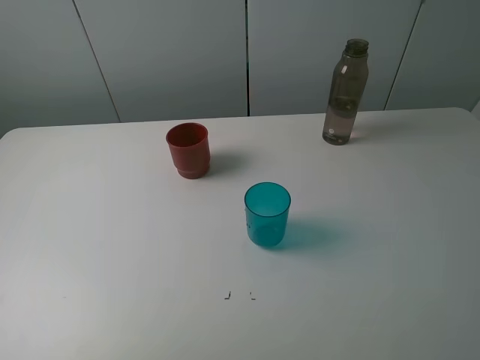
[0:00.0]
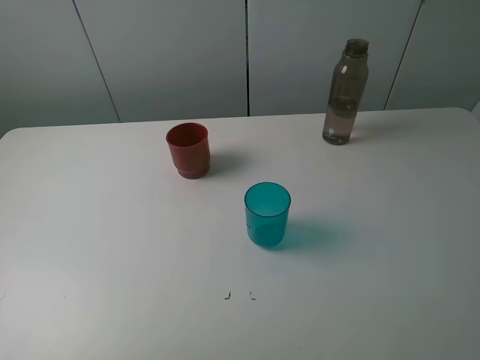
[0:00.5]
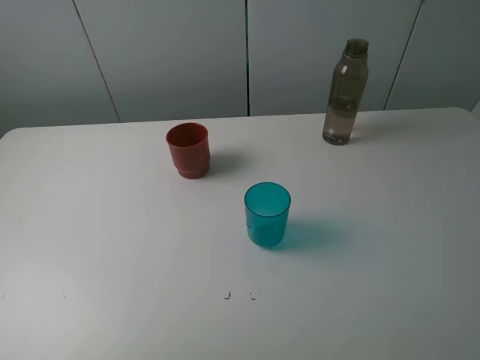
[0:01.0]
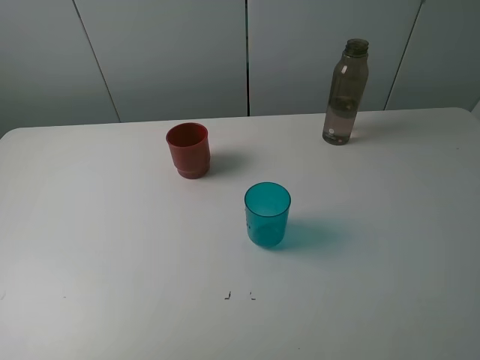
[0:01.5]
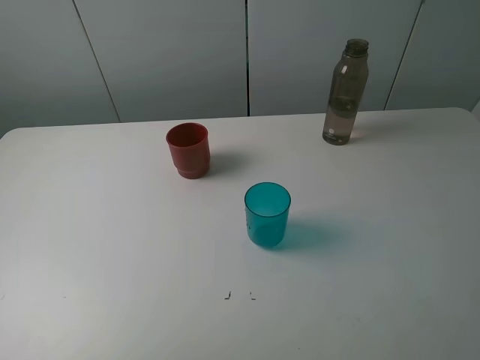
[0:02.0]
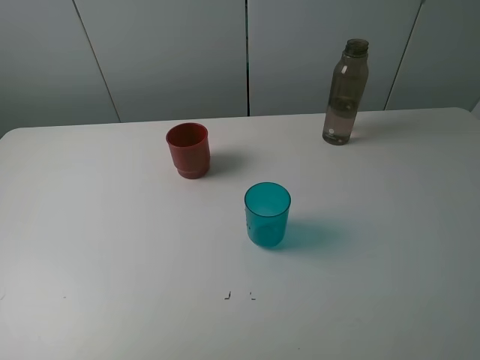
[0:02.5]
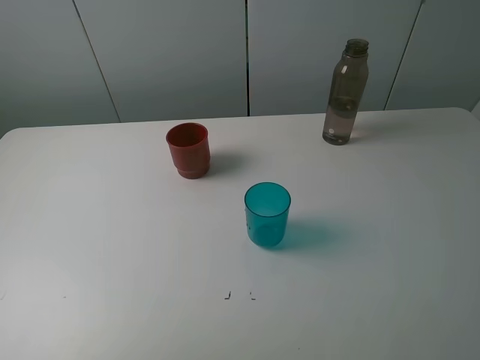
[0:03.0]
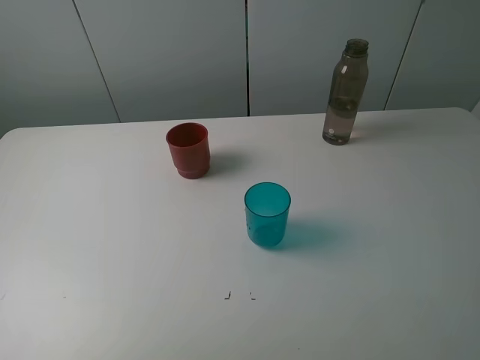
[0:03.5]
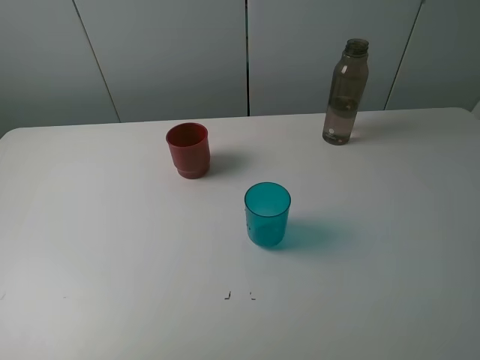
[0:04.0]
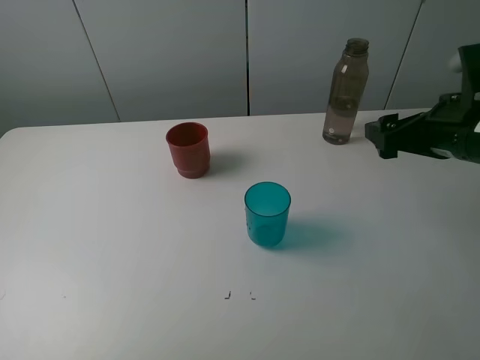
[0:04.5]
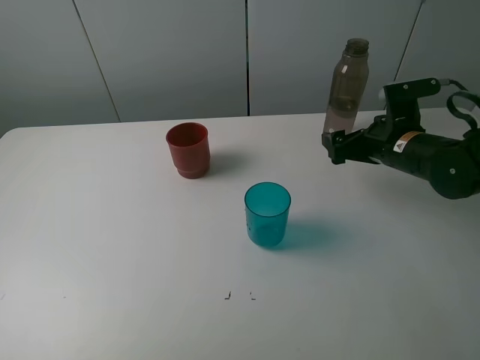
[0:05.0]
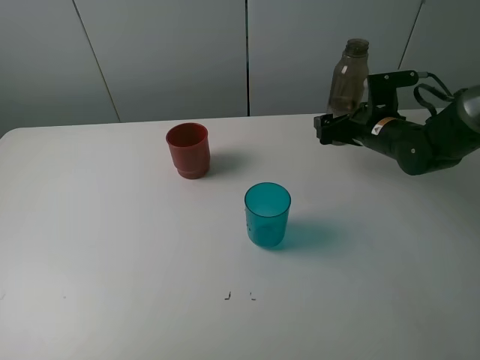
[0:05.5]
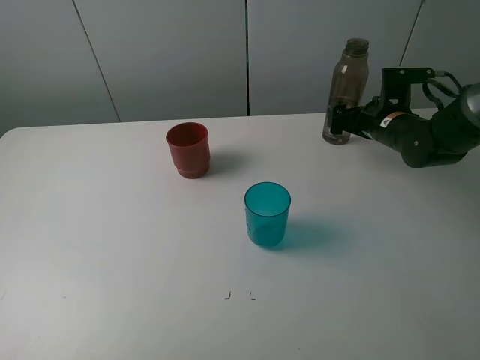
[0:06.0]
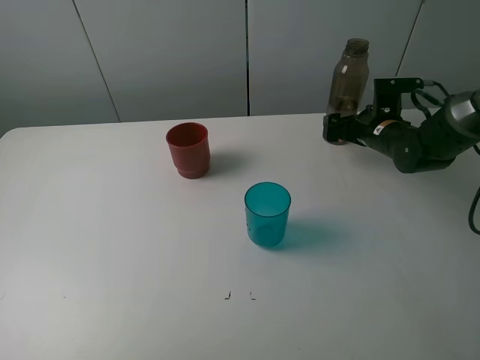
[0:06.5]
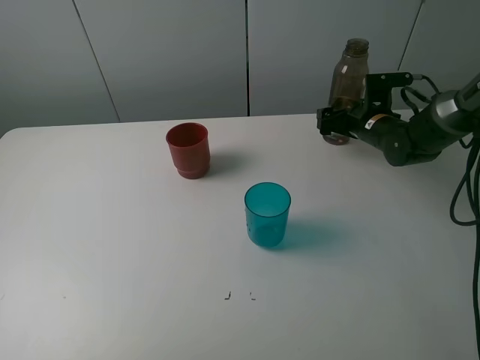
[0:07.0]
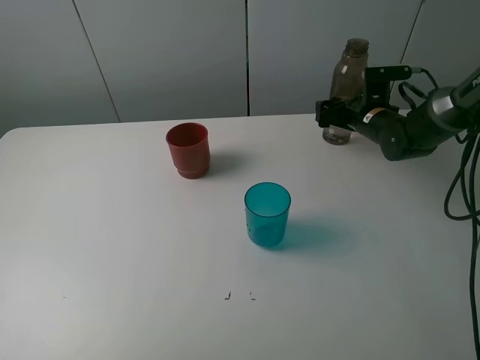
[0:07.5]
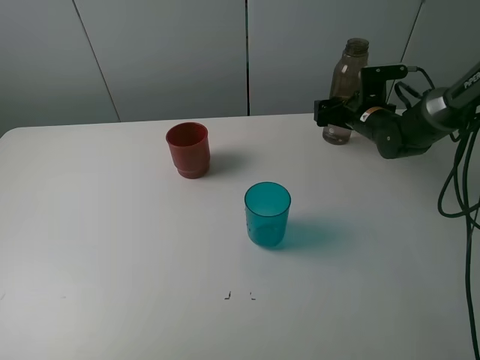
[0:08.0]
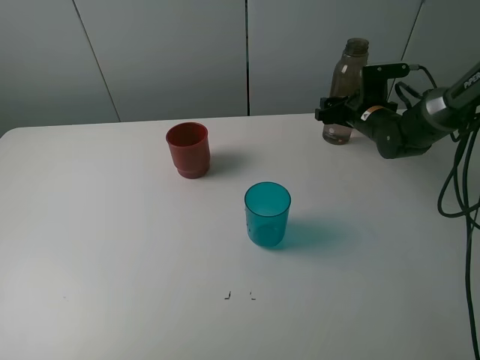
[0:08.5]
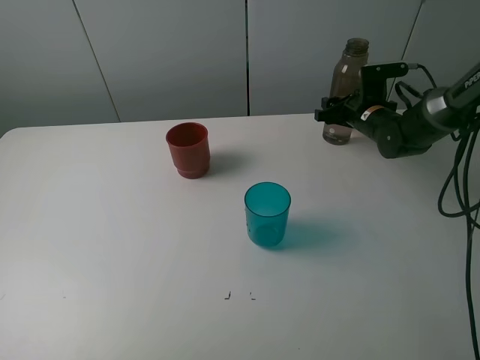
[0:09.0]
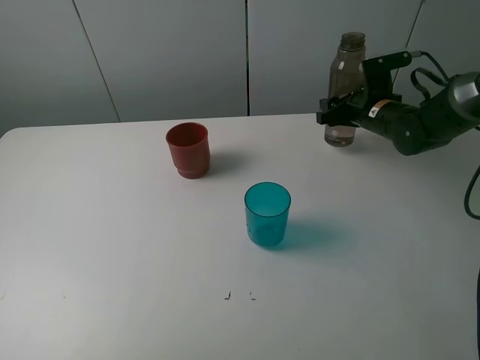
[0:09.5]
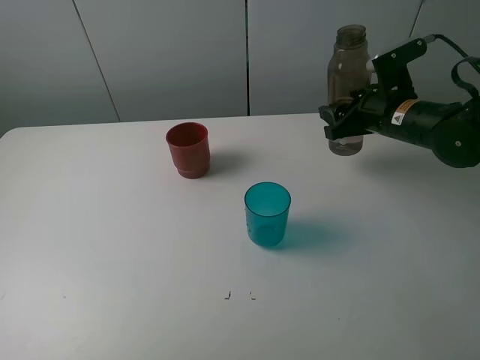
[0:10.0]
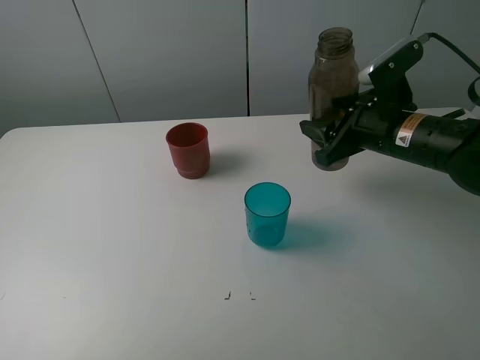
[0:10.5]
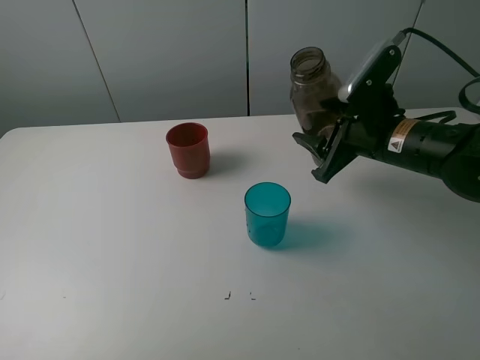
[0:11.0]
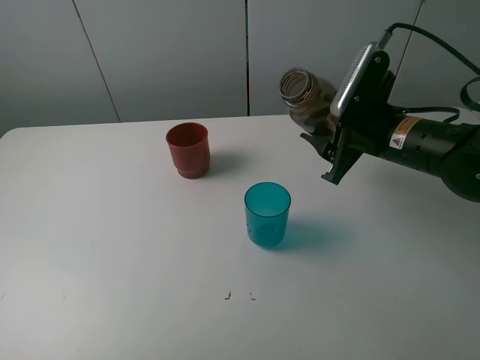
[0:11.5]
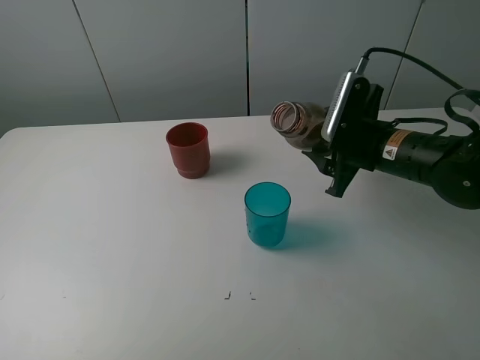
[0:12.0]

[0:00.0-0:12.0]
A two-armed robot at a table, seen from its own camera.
Task of the whole recording: pick up the bottle and pour water into the cup, then pick up the cup containing water and pour it into another cup.
Step, 0.0 to 8.5 s: Grasp the brown bottle with the right gripper.
0.0 to 2.0 s: Both grippers stay about where they are.
4.0 to 6.0 s: The right gripper travels forward and downward by some 30 cm.
6.0 to 8.0 s: The right gripper travels forward by roughly 5 cm.
8.0 to 10.0 s: The right gripper heads backward and upward, covering some 15 cm, and closes.
10.0 to 12.0 s: The right gripper travels backward by approximately 5 cm.

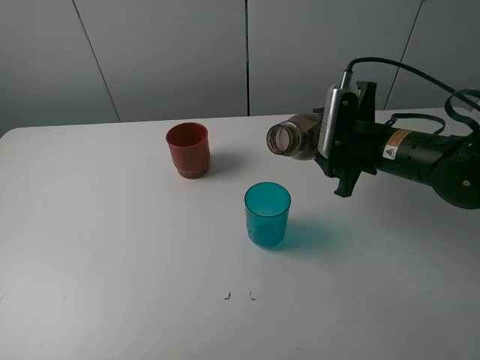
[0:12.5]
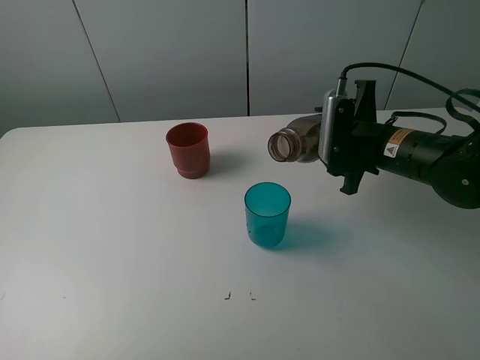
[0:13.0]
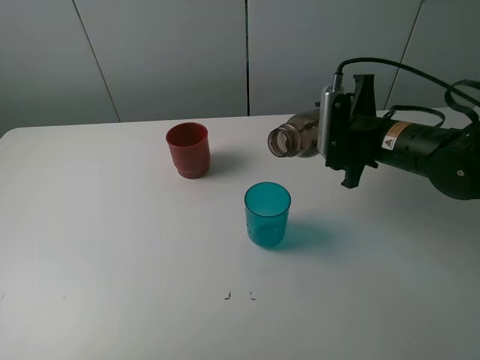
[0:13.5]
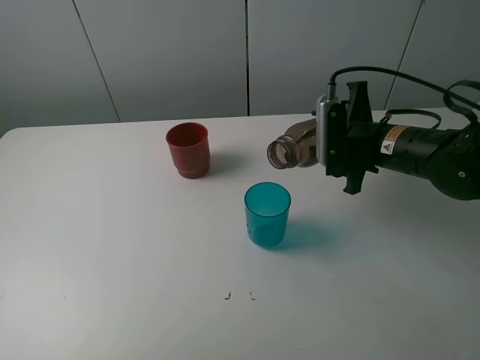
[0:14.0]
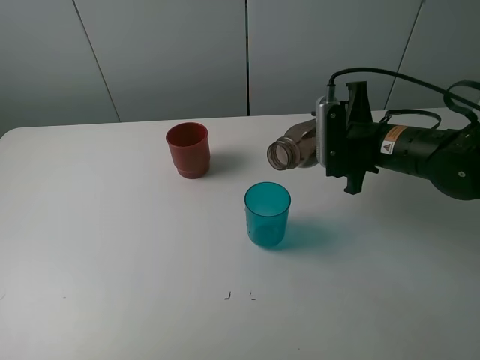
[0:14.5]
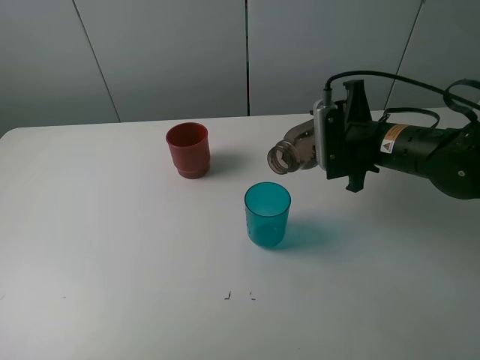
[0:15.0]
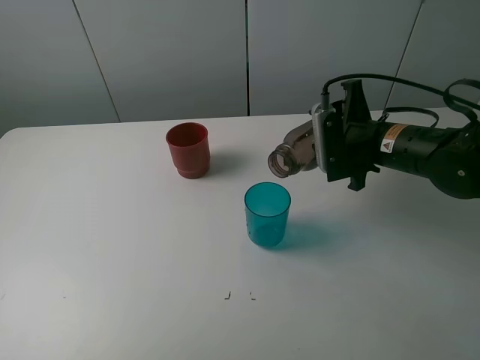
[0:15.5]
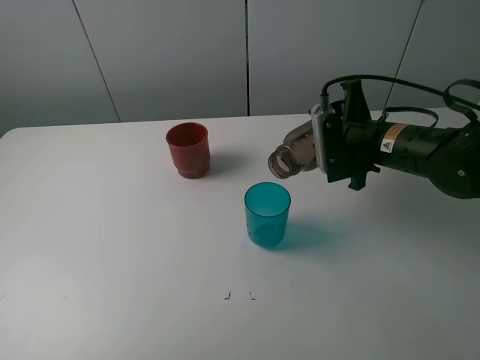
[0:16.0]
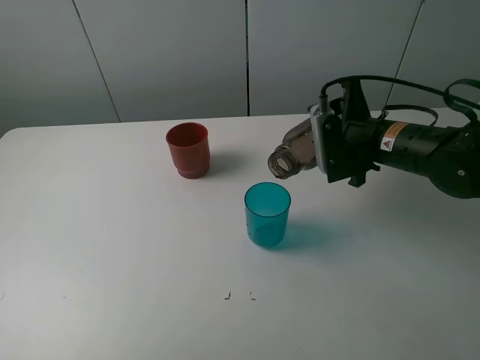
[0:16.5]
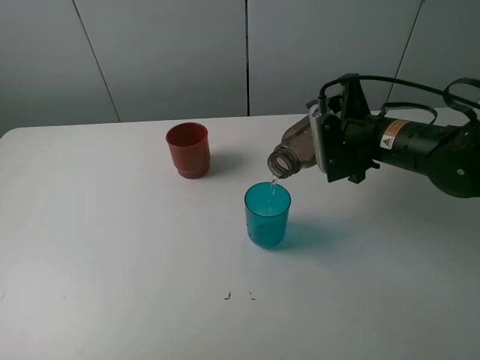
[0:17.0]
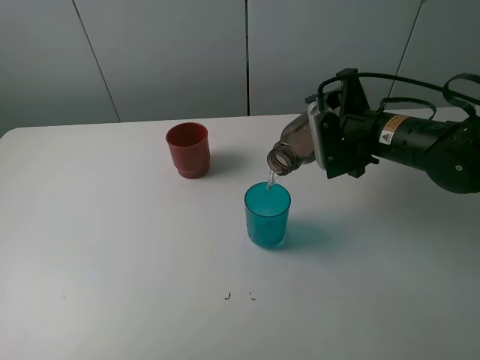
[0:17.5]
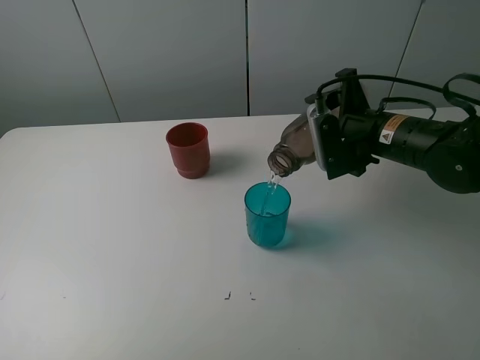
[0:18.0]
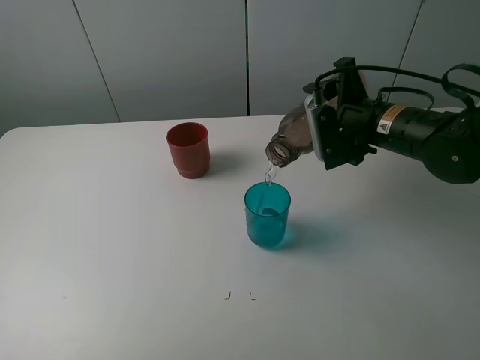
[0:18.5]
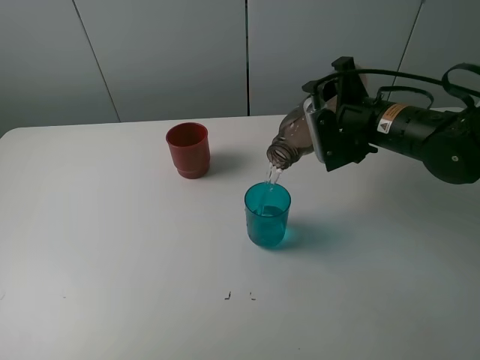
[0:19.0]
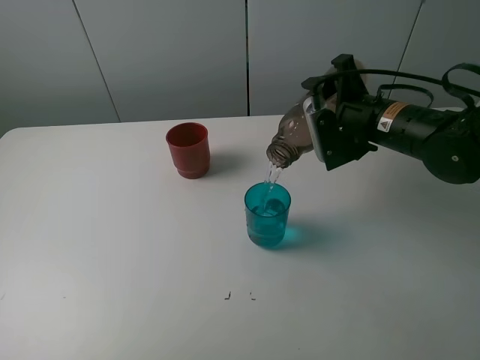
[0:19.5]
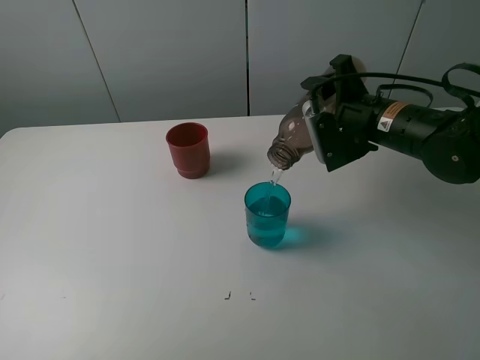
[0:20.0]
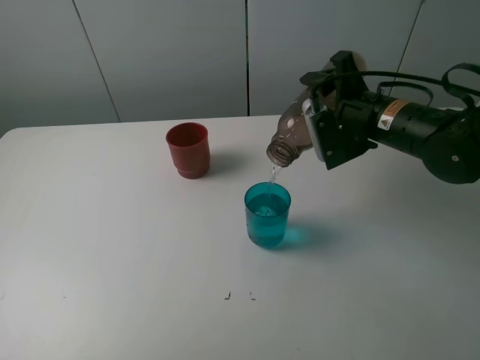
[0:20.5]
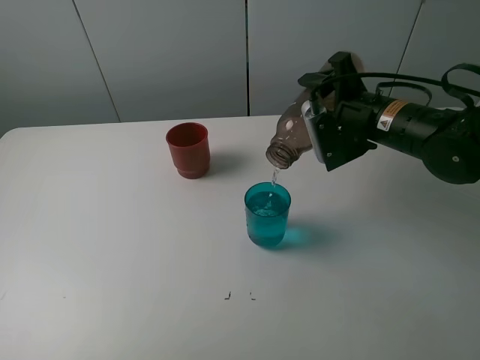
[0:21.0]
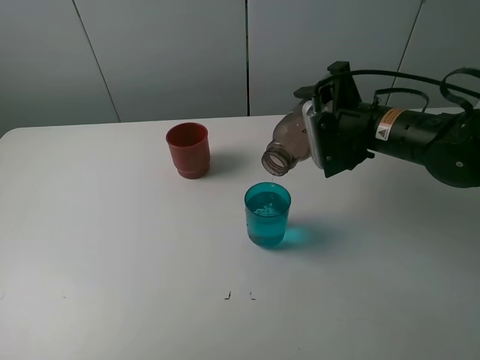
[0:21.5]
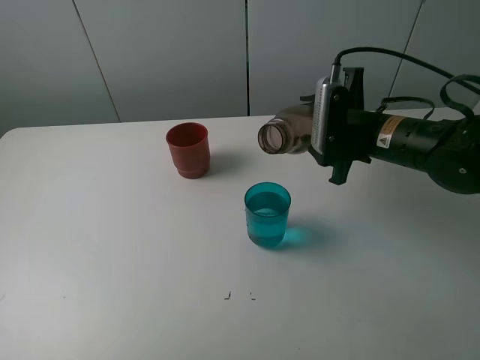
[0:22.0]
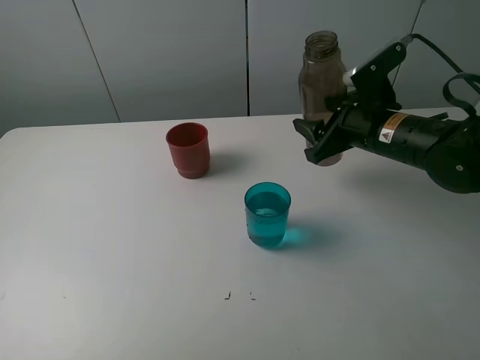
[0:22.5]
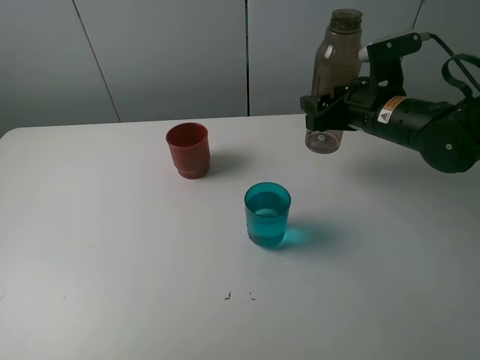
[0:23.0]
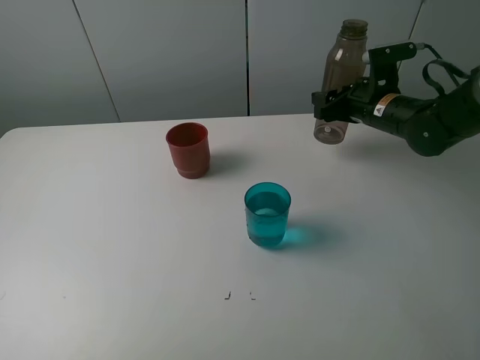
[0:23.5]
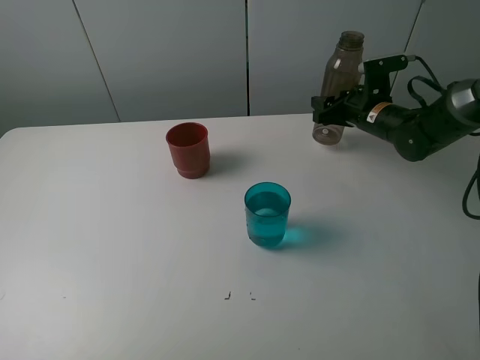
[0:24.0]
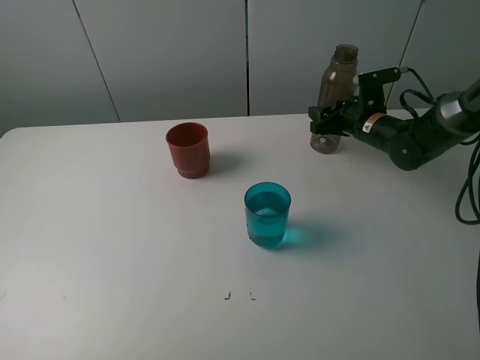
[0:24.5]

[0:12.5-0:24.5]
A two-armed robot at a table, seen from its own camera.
Task of the whole recording: pick up the bottle and pour water into the cup, then pick up the cup containing water and pour it into another cup.
Step, 12.5 to 21.5 s: Pour water from brown bottle to blue cup with the right gripper.
12.5 to 14.5 s: The grippers move only a little.
14.5 to 18.5 s: The grippers stay close to where they were, moving slightly.
18.5 to 20.5 s: The grippers move only a little.
22.5 to 24.5 s: The right gripper travels forward and downward by roughly 15 cm.

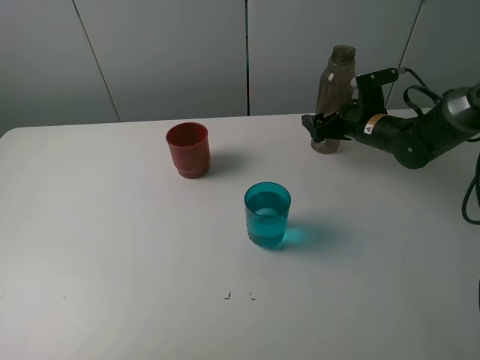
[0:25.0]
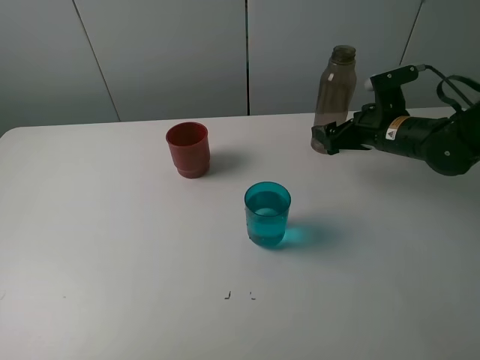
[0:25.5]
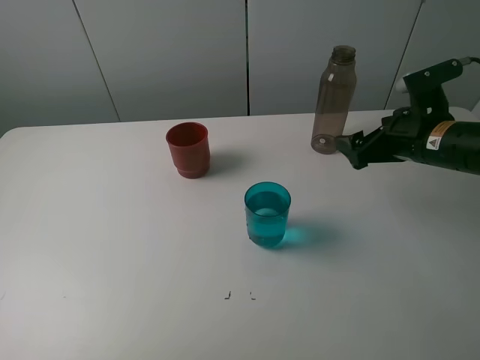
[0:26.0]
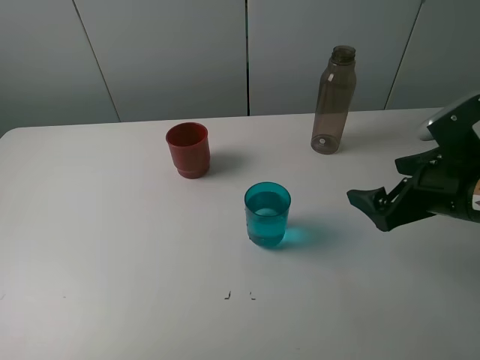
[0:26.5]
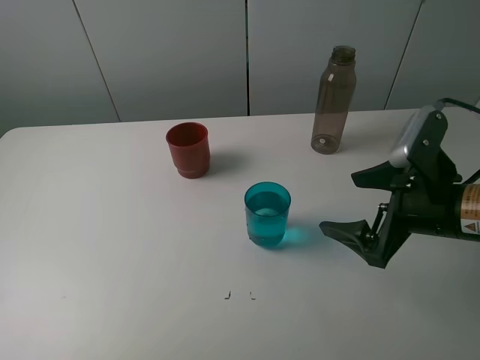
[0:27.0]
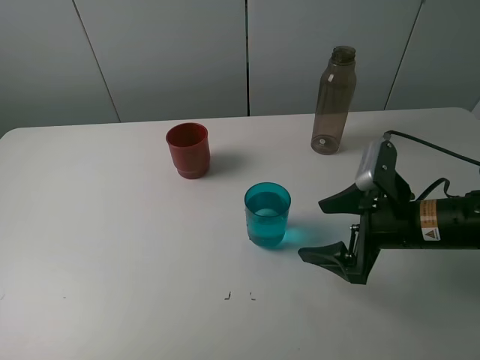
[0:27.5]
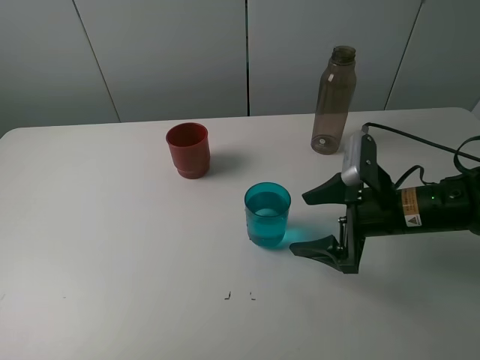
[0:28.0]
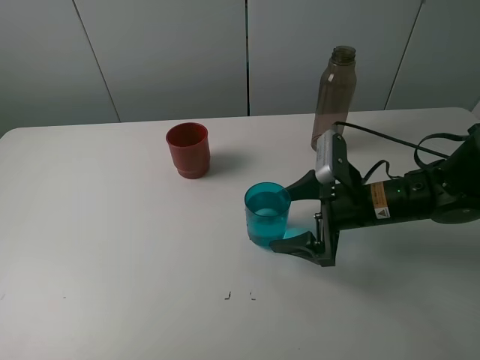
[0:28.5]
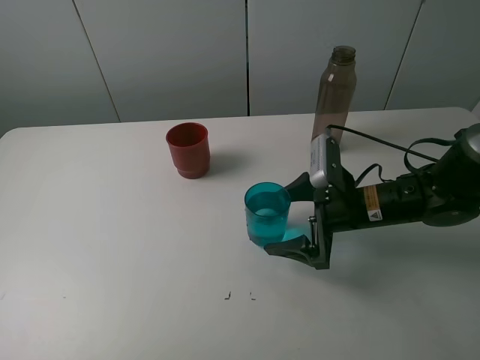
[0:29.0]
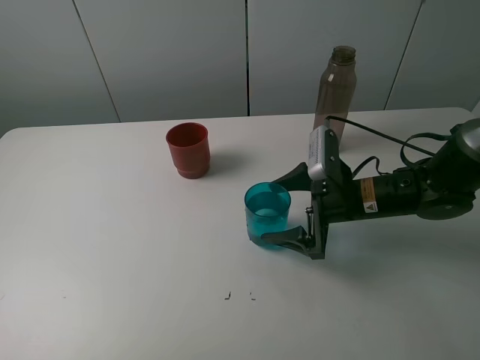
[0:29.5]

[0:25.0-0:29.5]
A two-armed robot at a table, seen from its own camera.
Task of the whole recording: pick up the bottle and pour water into the cup, then pick up the cup containing water and pour it into another cup.
25.0 to 27.0 s: The right gripper is displaced backward by some 20 cm.
27.0 to 29.5 s: The right gripper goes about 10 cm forward, downward and to the left.
